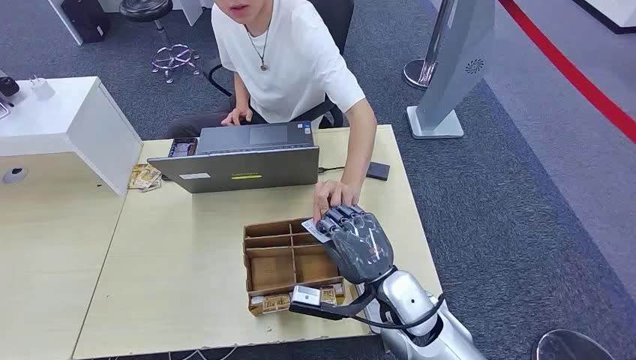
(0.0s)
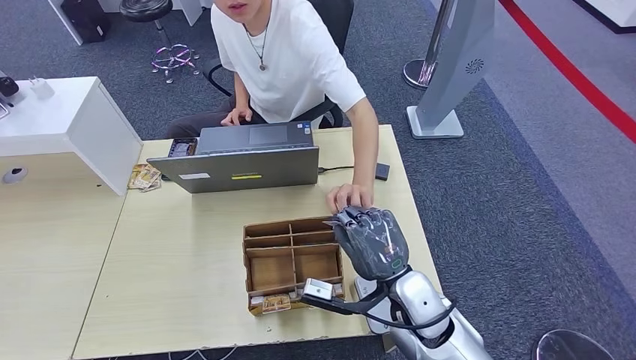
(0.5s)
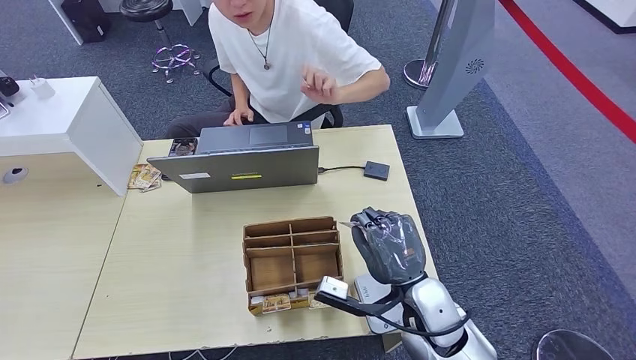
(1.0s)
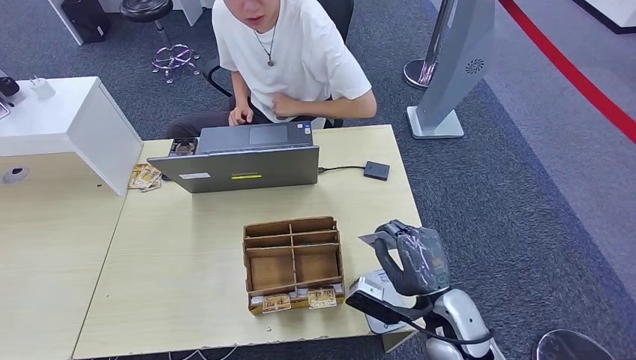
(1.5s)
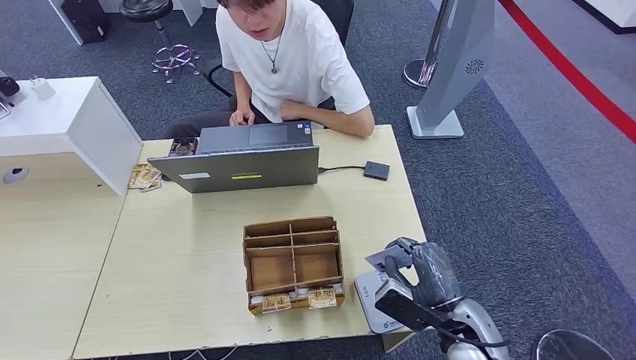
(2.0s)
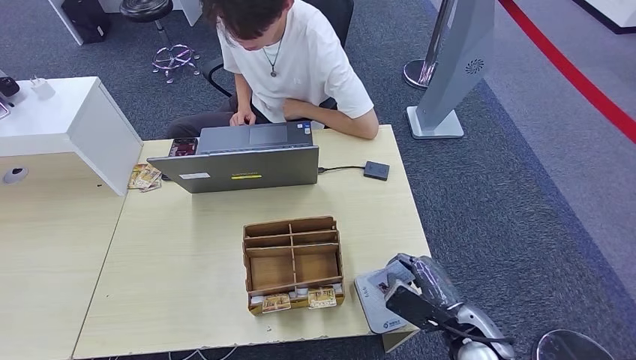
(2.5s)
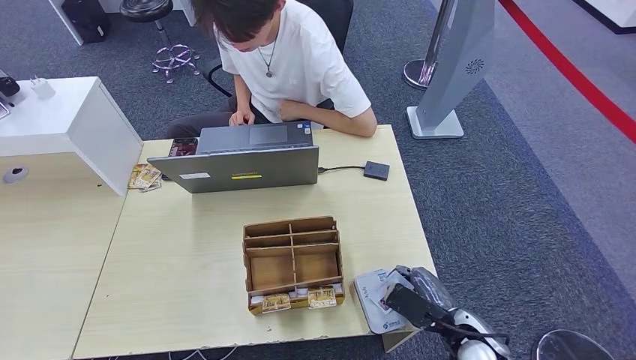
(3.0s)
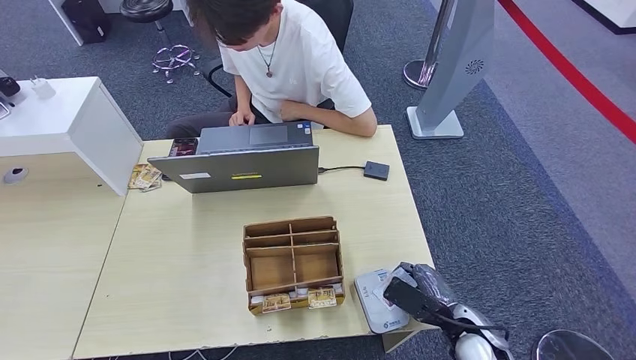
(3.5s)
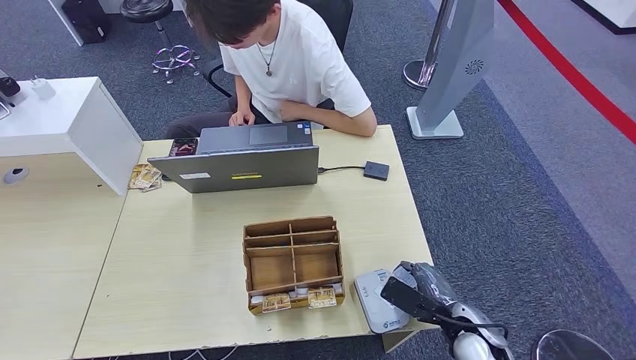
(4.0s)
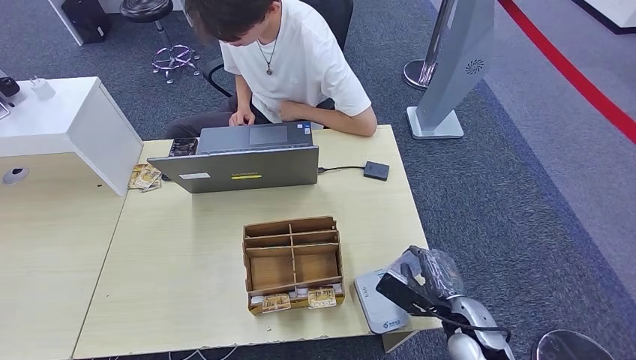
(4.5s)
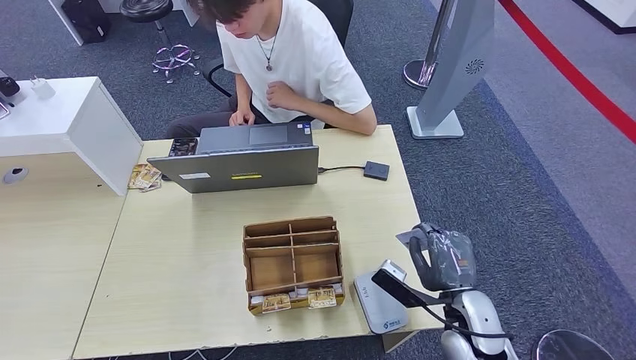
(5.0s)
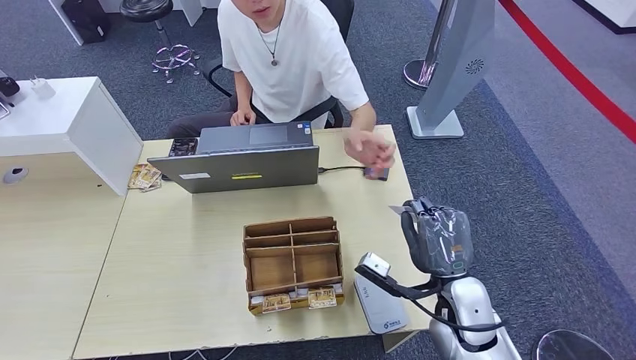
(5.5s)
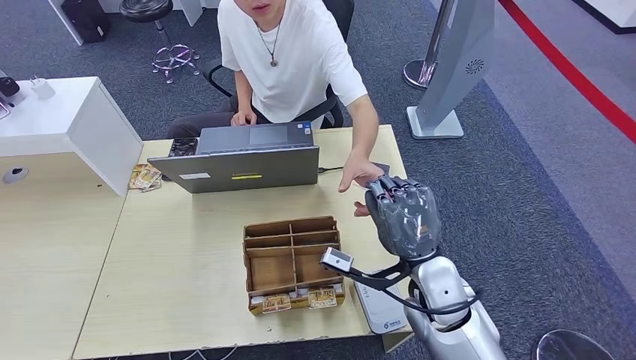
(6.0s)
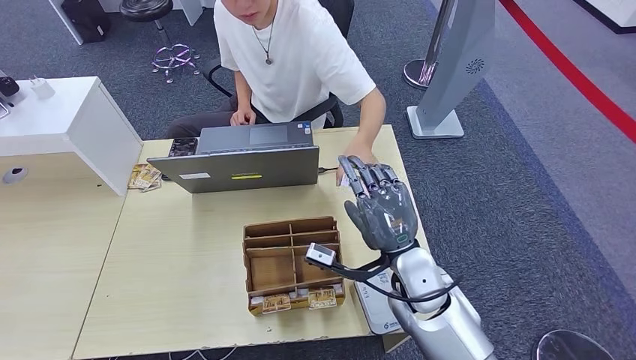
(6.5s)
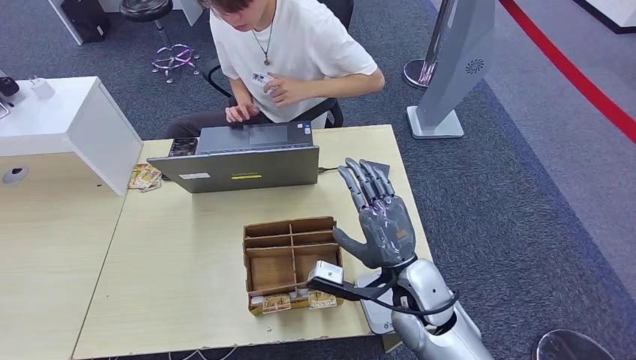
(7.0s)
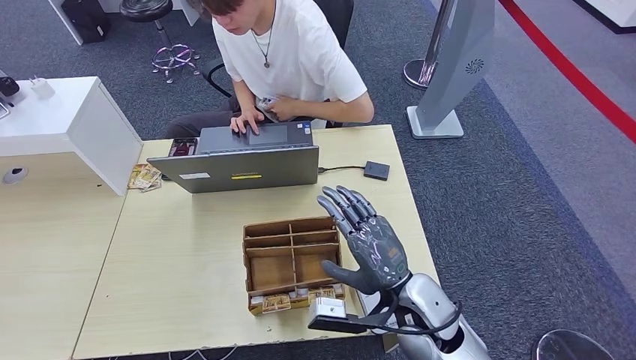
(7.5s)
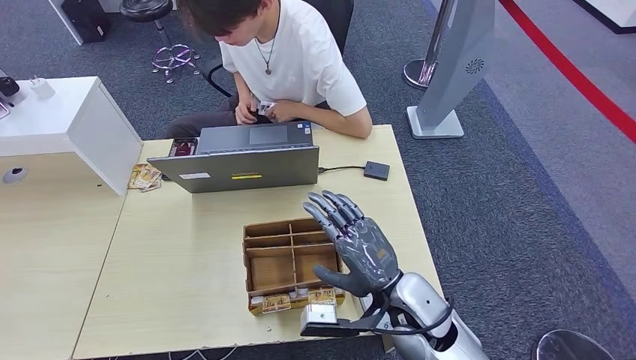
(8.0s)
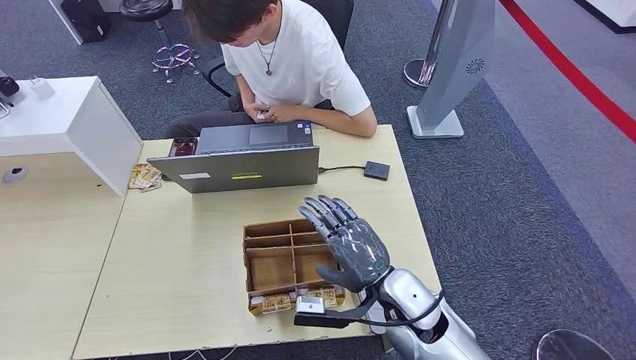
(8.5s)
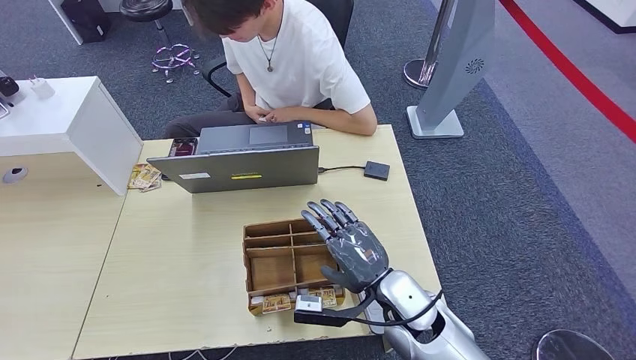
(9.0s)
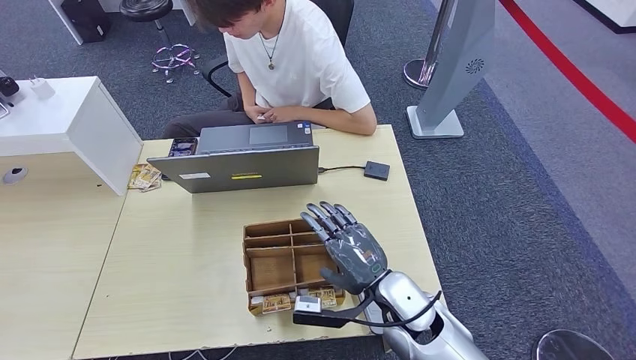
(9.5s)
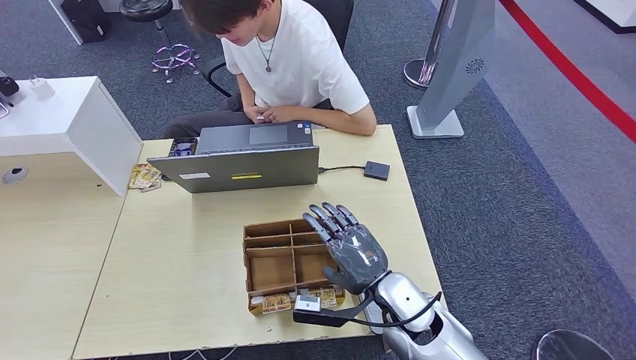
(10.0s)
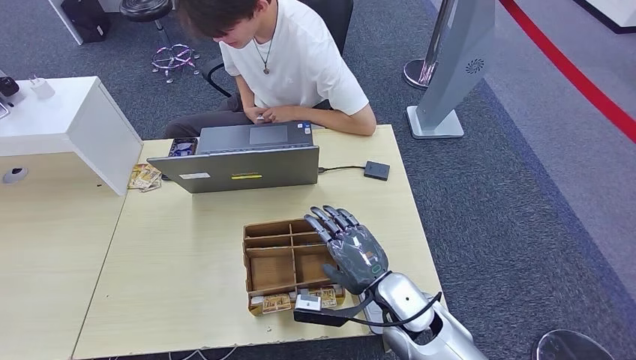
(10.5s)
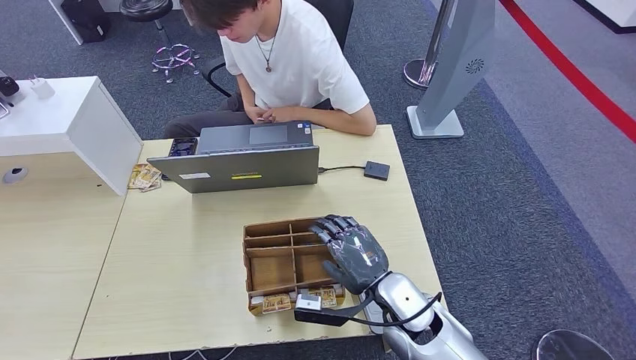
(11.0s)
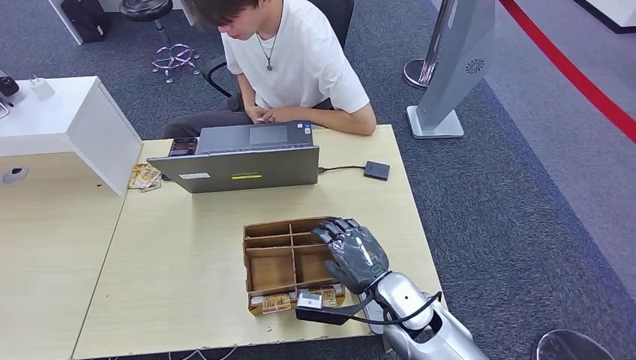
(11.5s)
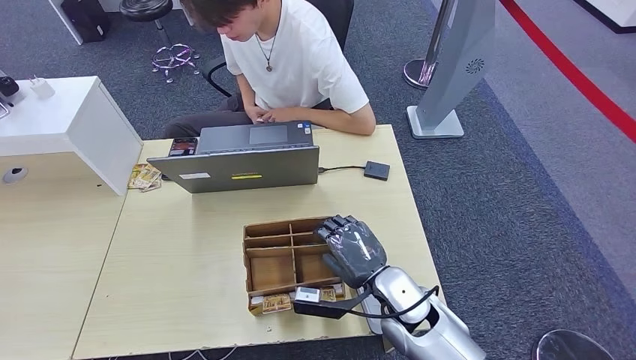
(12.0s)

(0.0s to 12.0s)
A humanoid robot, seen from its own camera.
Step, 0.0s - 1.0s: Take the ID card from the person's hand.
Step, 1.5s - 5.0s: Place the ID card on the card reader.
Step, 5.5s - 7.5s: Hand the ID card to the person.
2.0s - 4.0s: The right hand is displaced downward by some 5 cm.
4.0s - 6.0s: The right hand moves upward, to the left and forward, about 15 cm.
8.0s - 10.0s: The hands make only small movements.
10.0s - 12.0s: The two hands keep their place.

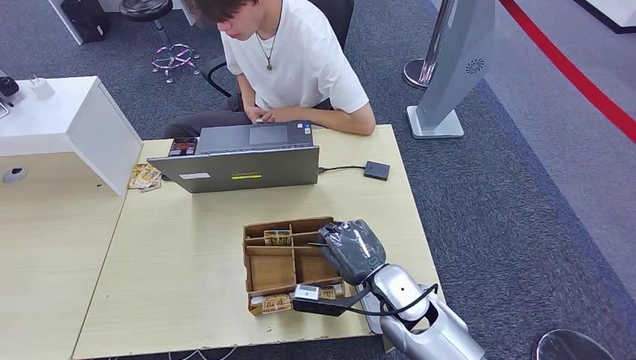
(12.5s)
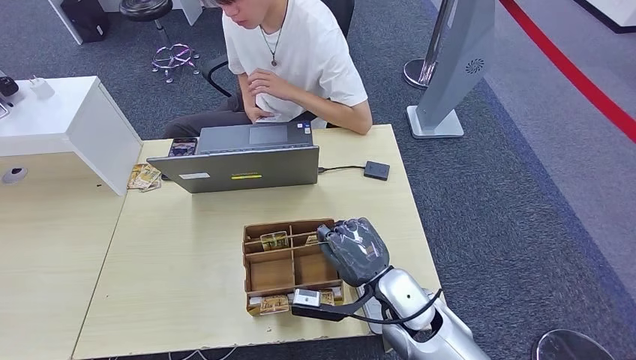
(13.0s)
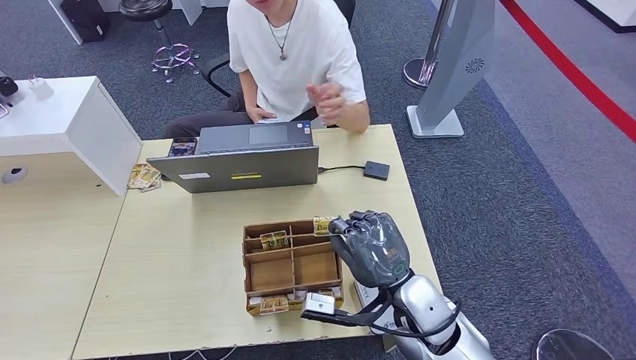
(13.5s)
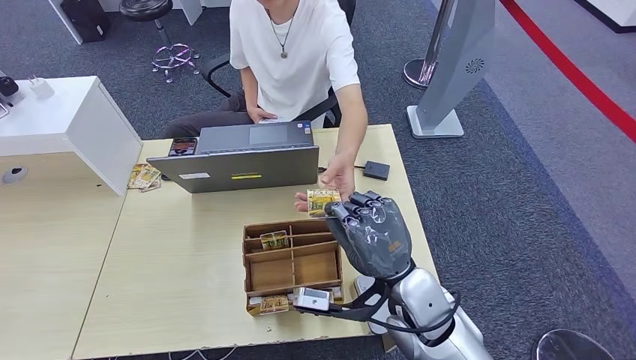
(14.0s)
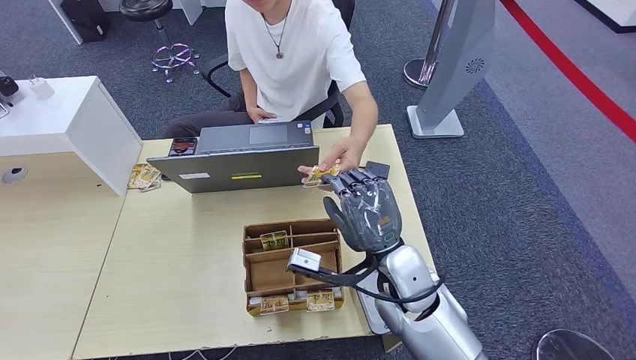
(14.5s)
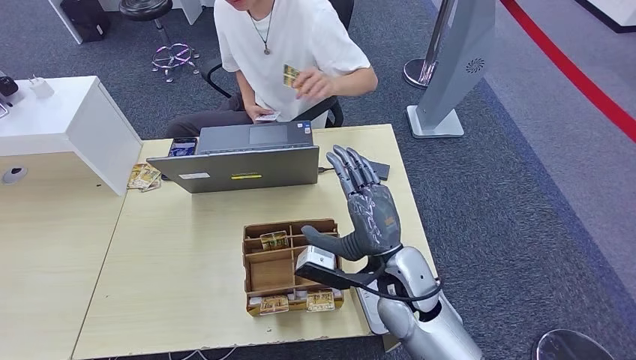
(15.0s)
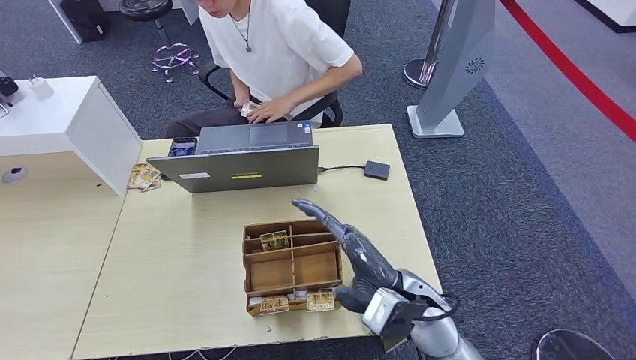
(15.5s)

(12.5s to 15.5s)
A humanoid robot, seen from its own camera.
Step, 12.5s - 13.5s: Pick up the room key from the key card box.
Step, 14.0s - 15.5s: Hand the room key to the person.
12.5s - 14.0s: The right hand moves upward, some 5 cm.
